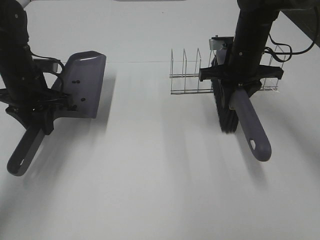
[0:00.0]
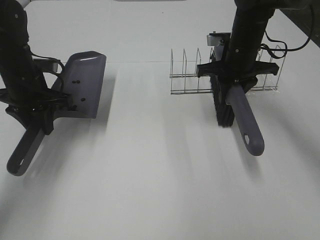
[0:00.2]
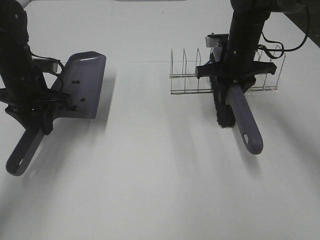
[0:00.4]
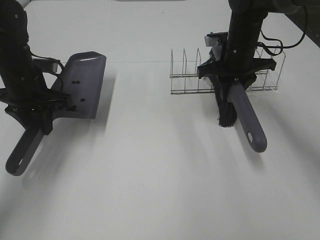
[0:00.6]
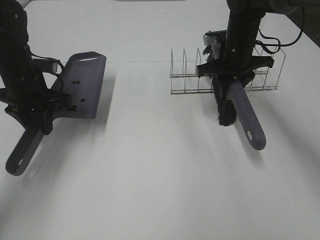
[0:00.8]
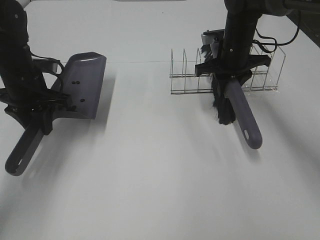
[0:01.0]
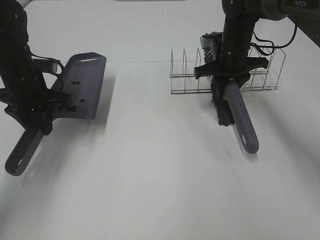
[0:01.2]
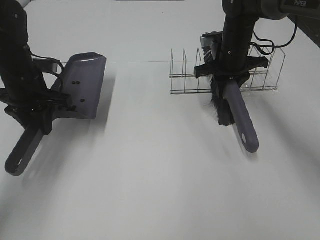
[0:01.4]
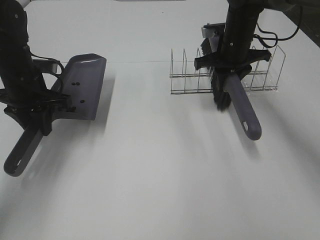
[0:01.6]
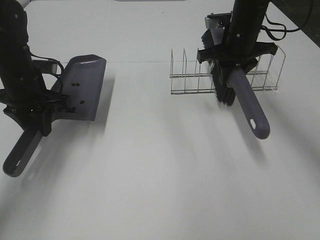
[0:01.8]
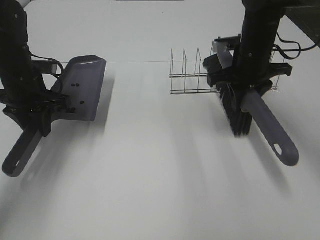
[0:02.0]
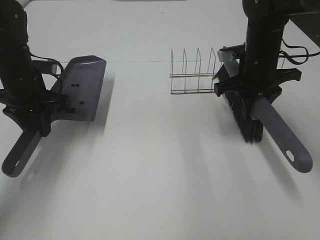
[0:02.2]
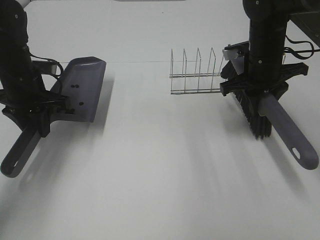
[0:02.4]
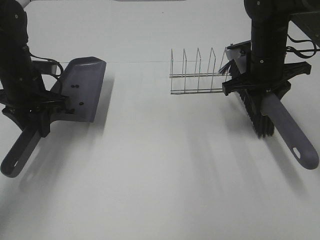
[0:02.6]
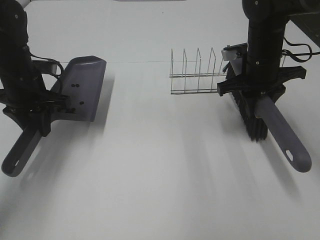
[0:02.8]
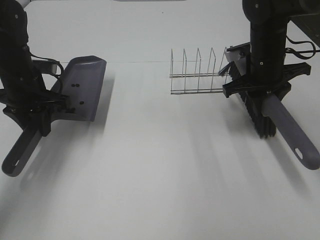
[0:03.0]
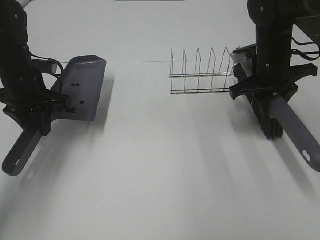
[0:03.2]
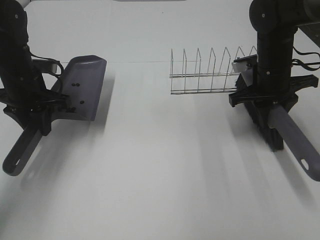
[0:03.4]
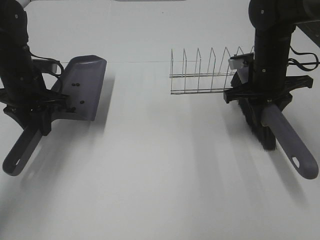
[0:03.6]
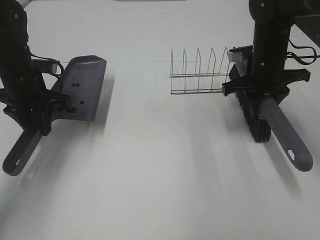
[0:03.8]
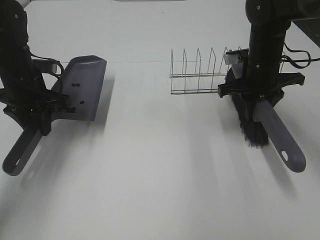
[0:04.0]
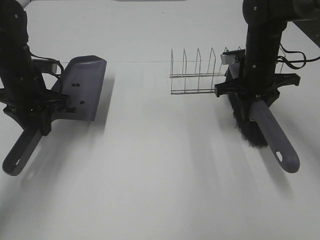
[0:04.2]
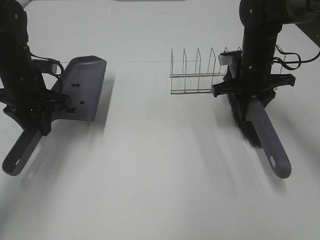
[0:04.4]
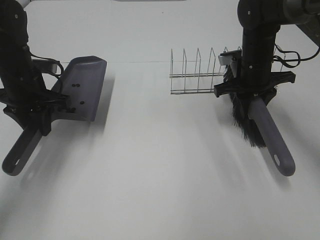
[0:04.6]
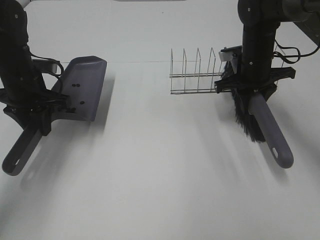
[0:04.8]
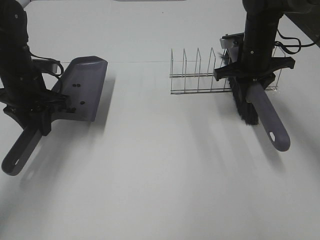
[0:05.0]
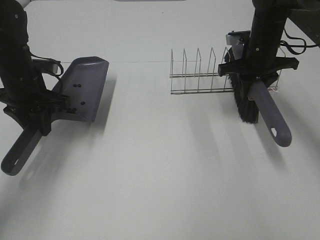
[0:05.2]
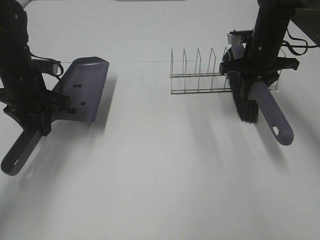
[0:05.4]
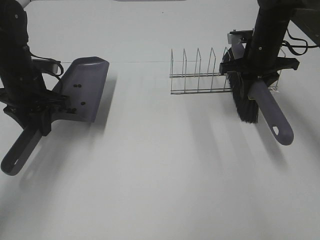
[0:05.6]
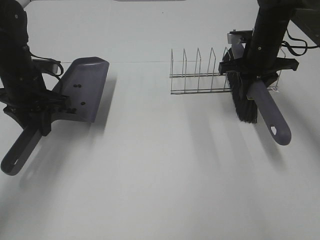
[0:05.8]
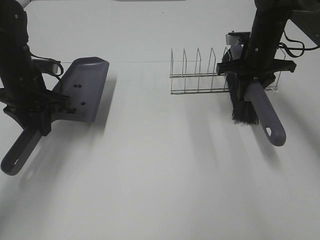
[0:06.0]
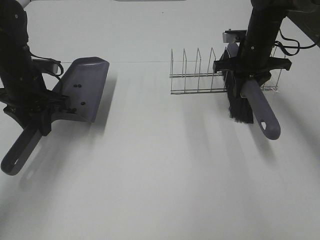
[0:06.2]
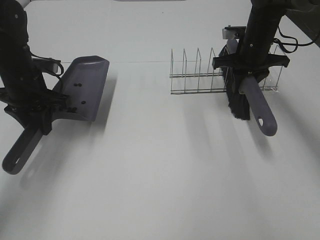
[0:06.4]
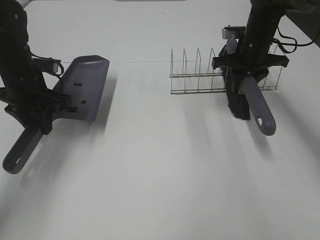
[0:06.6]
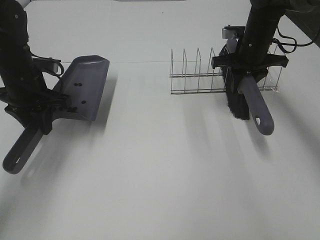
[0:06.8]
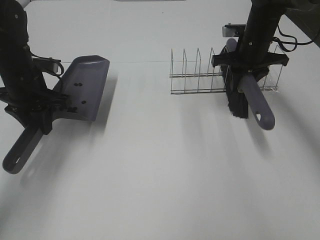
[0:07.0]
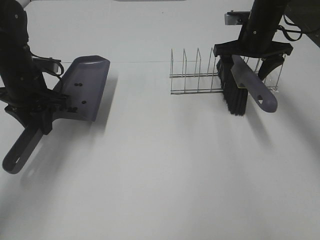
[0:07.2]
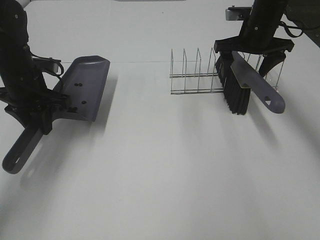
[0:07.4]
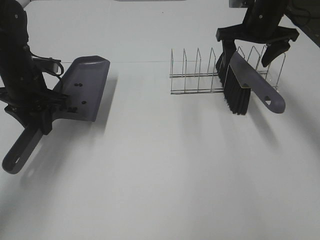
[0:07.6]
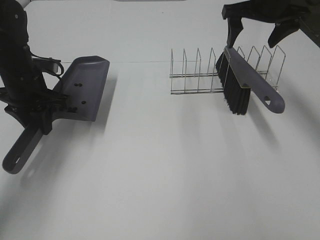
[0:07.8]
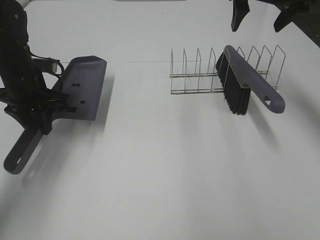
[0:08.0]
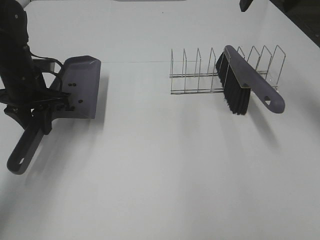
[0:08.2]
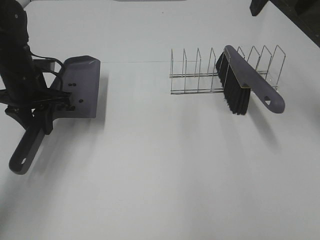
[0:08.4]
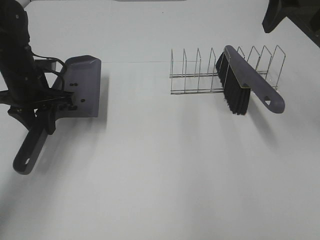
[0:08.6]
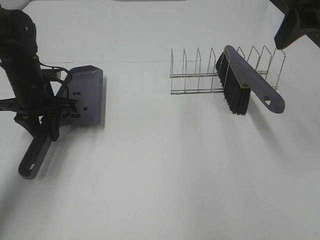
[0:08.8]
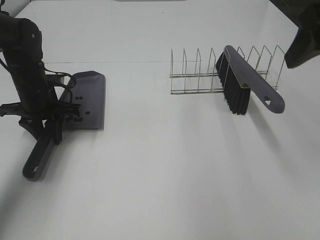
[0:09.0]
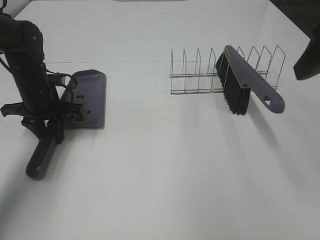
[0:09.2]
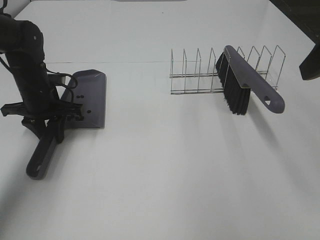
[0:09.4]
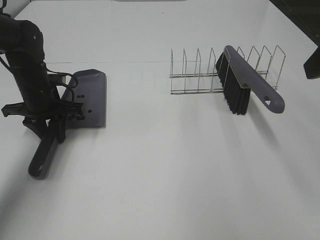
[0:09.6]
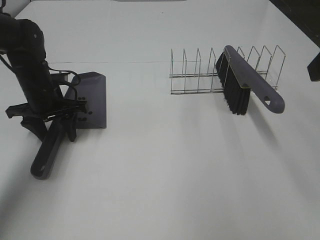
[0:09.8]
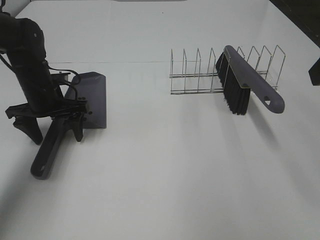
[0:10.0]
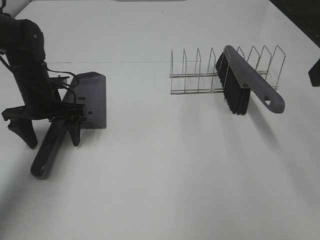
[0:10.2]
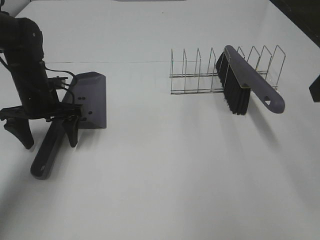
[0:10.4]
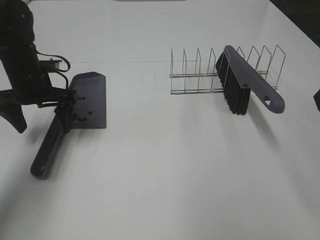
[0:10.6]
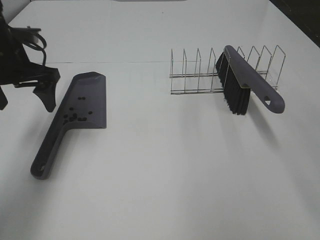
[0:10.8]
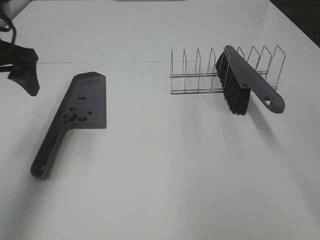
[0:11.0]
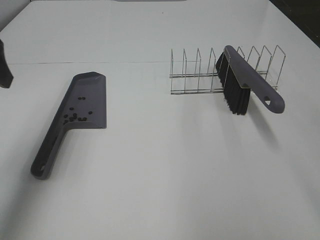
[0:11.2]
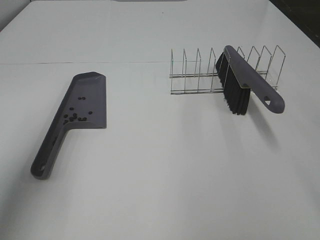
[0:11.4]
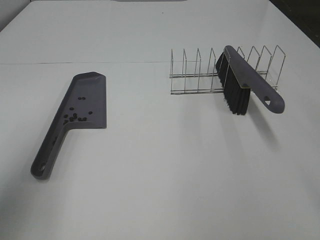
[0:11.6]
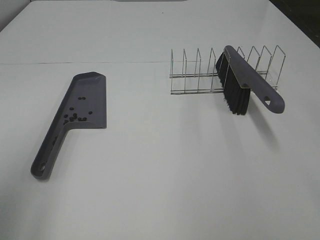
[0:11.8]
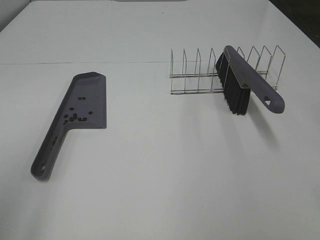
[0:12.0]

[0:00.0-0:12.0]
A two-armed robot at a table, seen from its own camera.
Task of the whole recording: Sweep Coffee Bean.
Step, 0.0 to 7.4 s: Right hand:place the broom on the rack.
Step, 7.6 to 10.2 s: Left hand:place the dustpan on the table.
0.0 to 1.6 s: The grippers make only small movements.
1.6 to 3.0 s: The right gripper is displaced backward by about 5 cm.
3.0 to 6.0 s: The grippers stay close to where they were, moving slightly.
6.0 to 7.6 s: The right gripper heads upward, covering about 5 cm, and opens.
7.6 to 9.0 s: The right gripper goes approximately 25 cm backward and upward.
9.0 to 10.4 s: The left gripper opens its fingers; the right gripper is displaced backward by approximately 5 cm.
10.4 to 12.0 s: The left gripper travels backward and upward by about 40 cm.

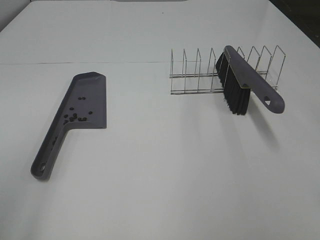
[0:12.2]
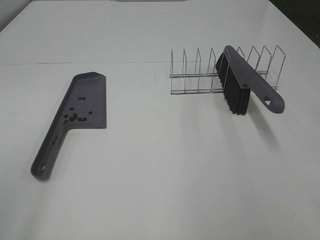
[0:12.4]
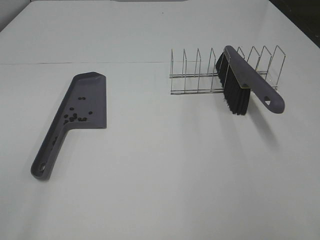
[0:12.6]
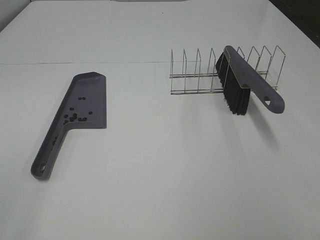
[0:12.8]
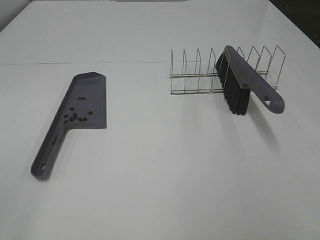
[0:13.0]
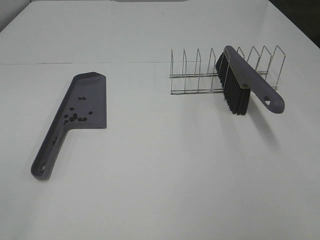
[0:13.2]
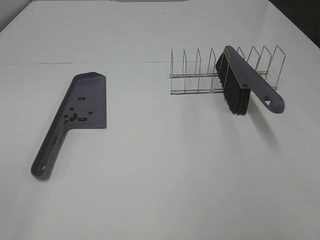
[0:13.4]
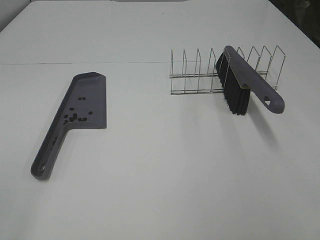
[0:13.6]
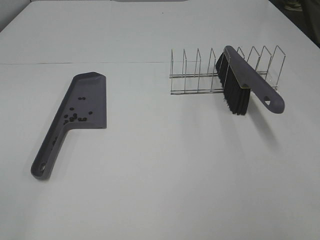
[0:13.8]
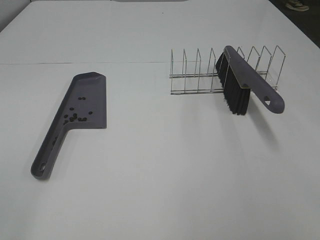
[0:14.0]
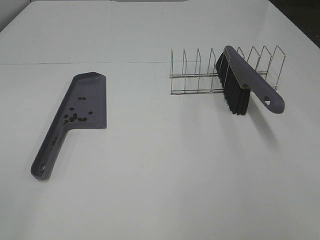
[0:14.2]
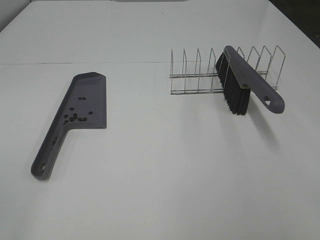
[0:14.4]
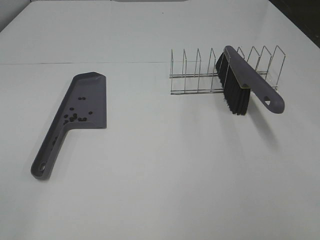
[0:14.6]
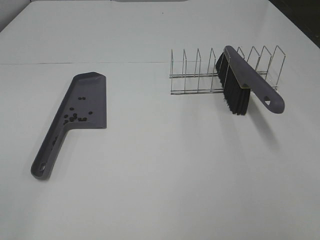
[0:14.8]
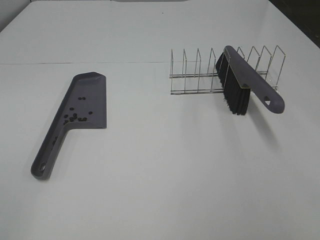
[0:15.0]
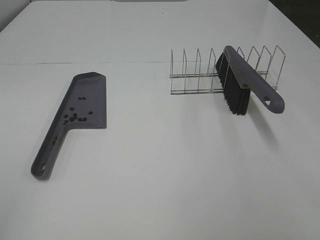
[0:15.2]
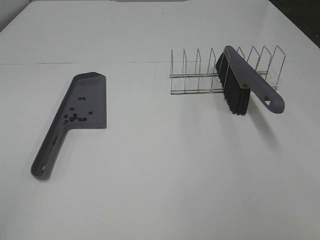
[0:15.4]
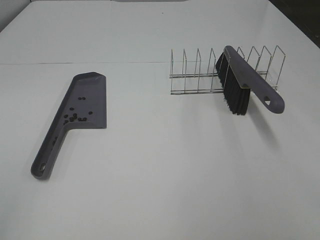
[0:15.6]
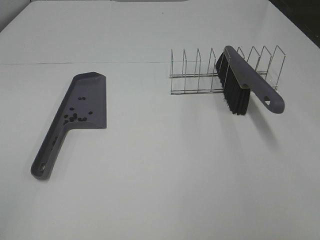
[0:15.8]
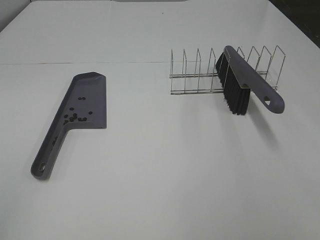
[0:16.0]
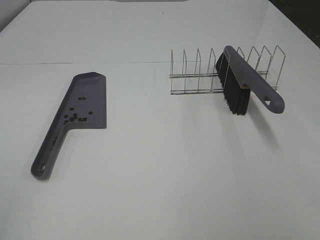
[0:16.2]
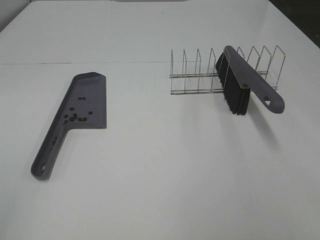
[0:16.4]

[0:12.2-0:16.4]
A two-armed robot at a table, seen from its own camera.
Task of the whole recording: Sweep Coffee Bean.
15.0 to 16.4 s: Neither gripper changes place.

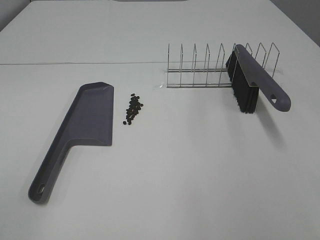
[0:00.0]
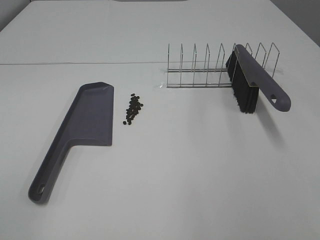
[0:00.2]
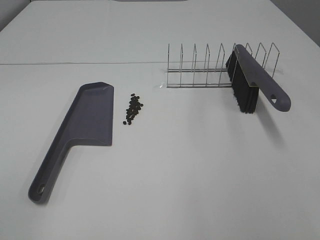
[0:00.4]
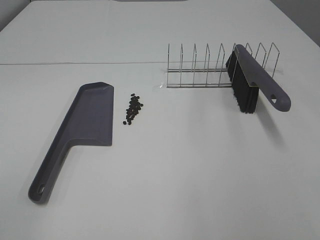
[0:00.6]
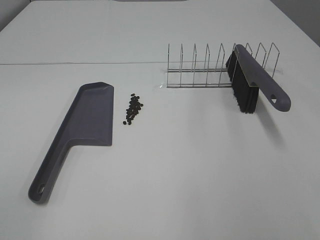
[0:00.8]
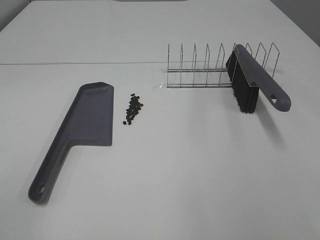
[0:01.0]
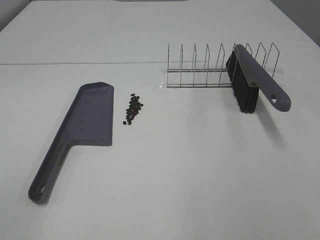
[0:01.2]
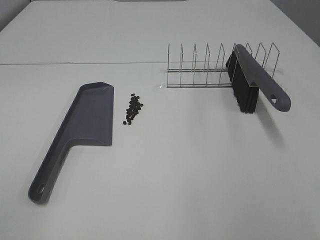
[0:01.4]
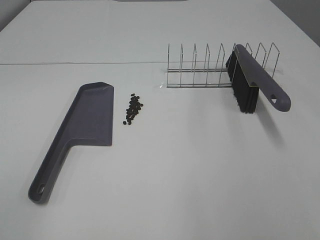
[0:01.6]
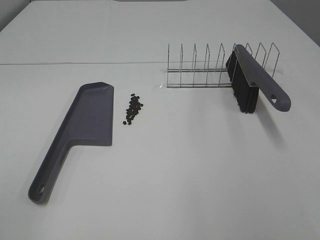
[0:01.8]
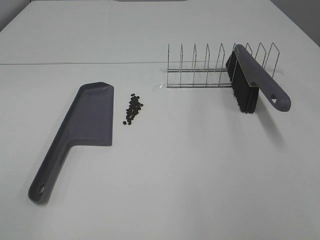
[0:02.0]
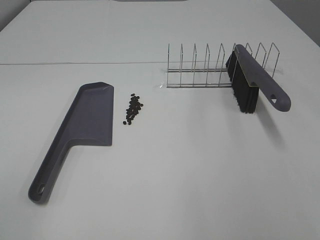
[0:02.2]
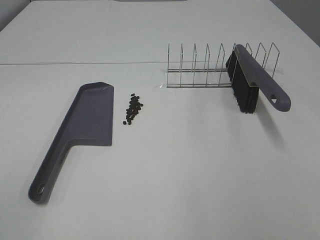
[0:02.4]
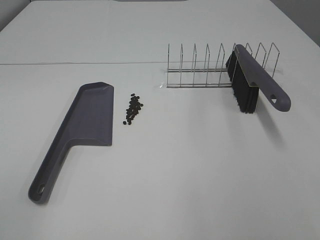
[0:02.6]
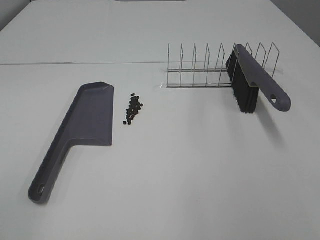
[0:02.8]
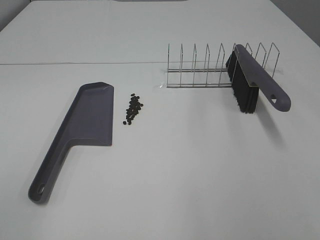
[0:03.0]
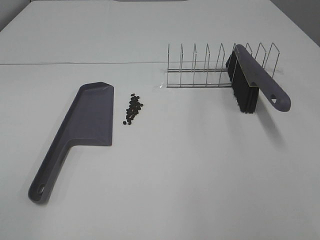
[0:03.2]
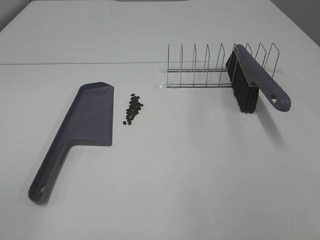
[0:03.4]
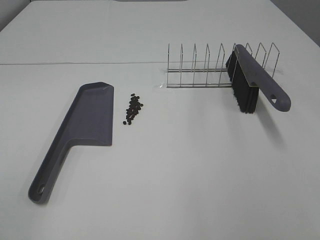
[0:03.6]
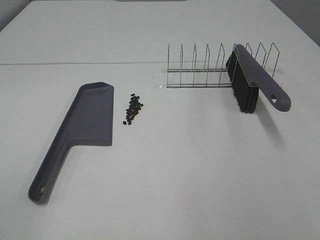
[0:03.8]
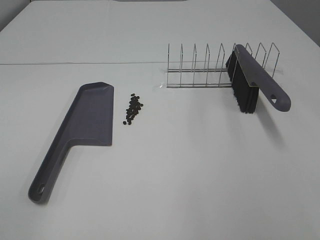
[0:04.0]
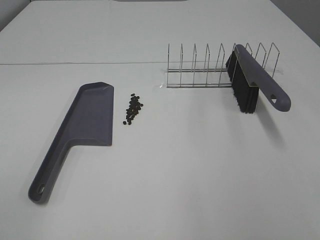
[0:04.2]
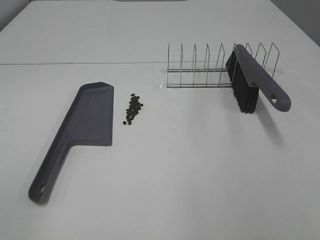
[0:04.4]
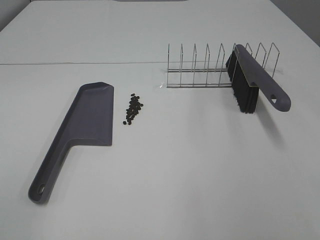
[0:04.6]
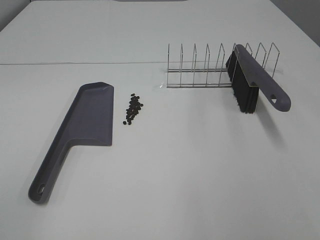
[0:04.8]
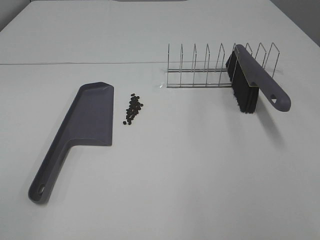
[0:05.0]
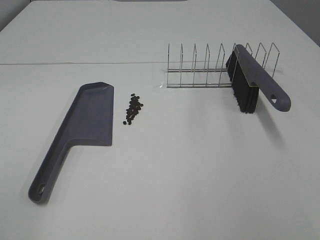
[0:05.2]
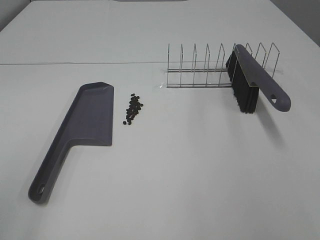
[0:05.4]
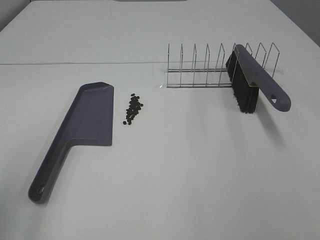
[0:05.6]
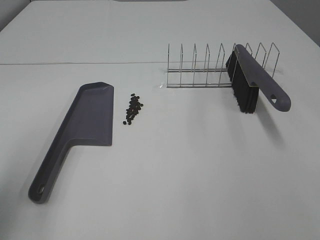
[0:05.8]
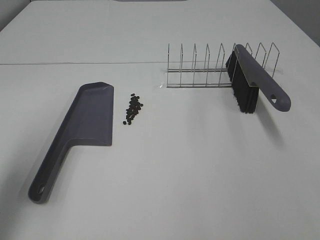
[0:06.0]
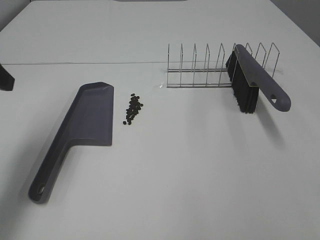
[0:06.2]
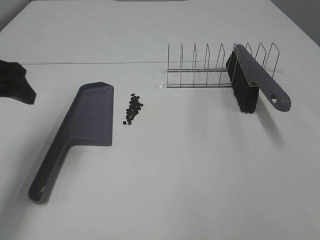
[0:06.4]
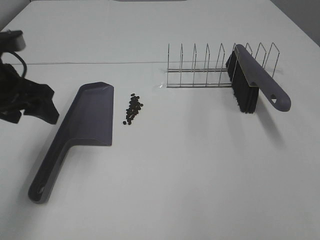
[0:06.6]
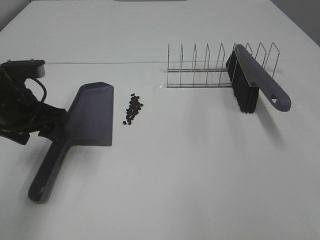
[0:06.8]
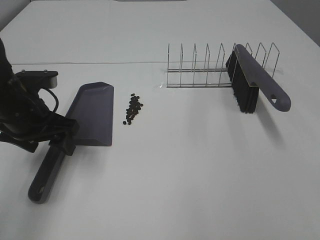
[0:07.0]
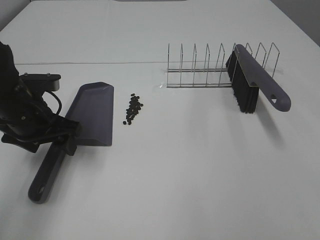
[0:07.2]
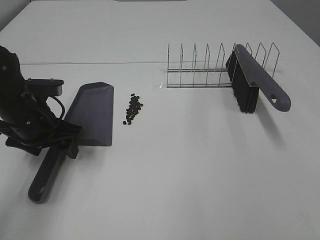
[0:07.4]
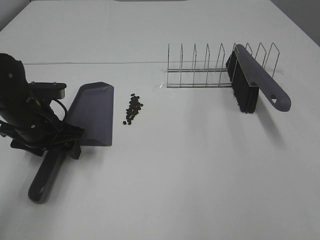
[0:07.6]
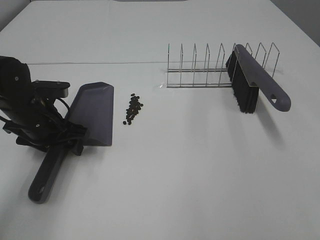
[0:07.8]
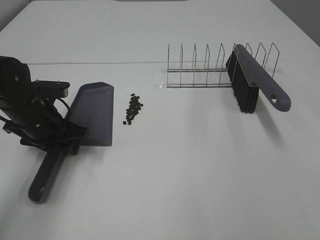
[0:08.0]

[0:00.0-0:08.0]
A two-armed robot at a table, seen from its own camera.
Task of the whole recording: Sweep Coffee Bean.
0.0 to 4.8 s: The two grippers keep their place.
4.8 to 6.4 s: The left gripper heads forward, covering about 30 cm.
6.4 to 8.0 s: The left gripper heads downward and to the right, covering approximately 15 cm, and closes its fingers.
